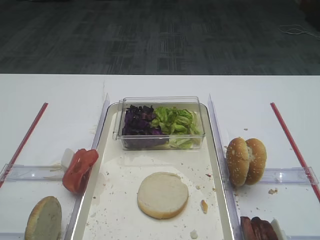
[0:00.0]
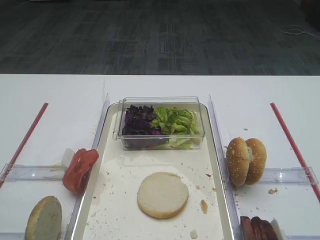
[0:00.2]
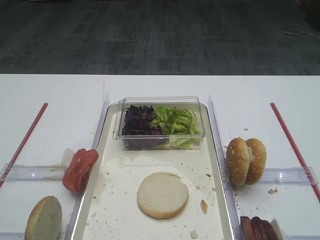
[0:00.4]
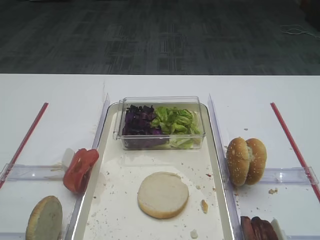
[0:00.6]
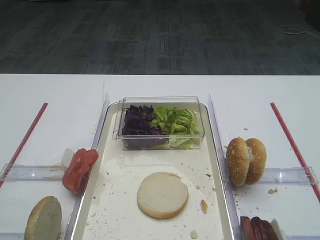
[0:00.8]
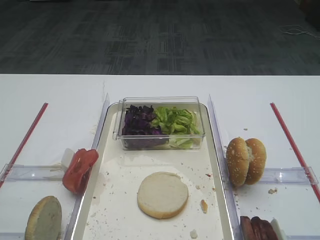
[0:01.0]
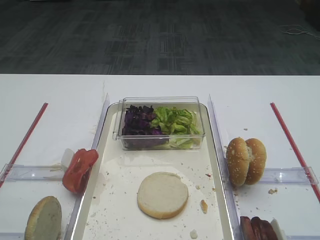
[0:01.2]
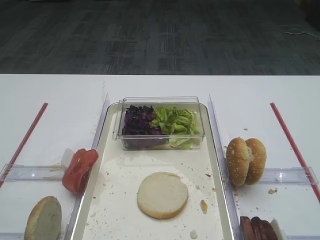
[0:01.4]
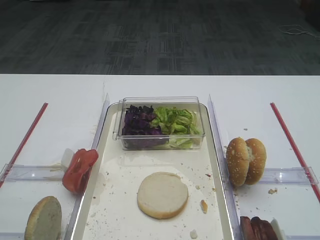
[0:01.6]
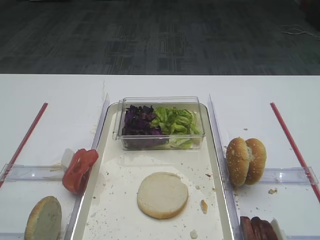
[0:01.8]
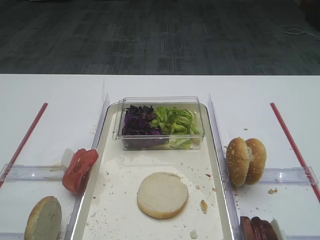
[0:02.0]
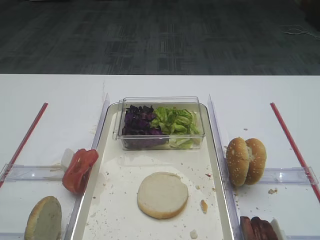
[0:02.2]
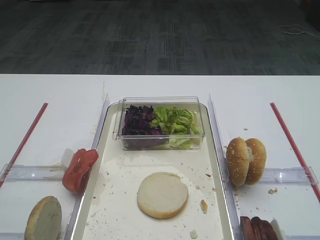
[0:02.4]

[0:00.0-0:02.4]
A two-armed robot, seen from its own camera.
0:01.2 to 0:02.4: Both grippers stay about where they are.

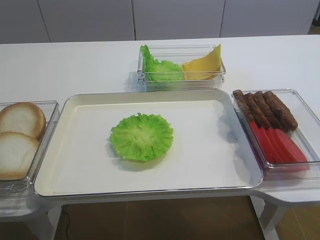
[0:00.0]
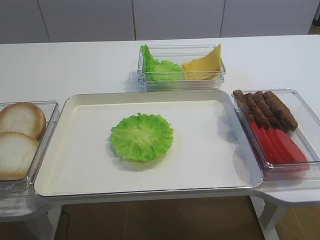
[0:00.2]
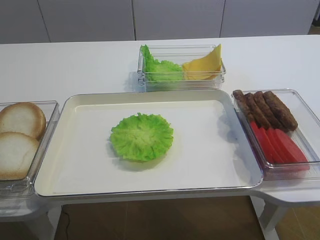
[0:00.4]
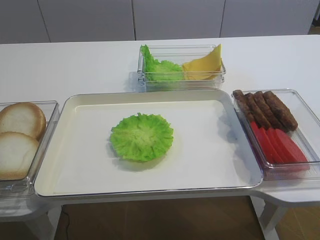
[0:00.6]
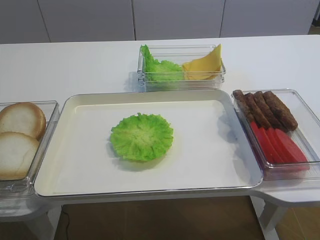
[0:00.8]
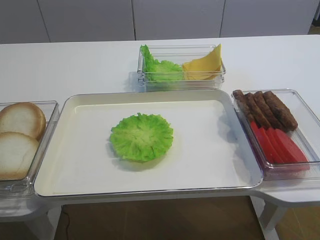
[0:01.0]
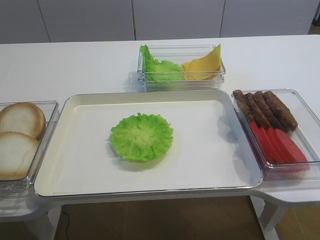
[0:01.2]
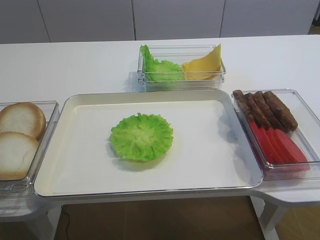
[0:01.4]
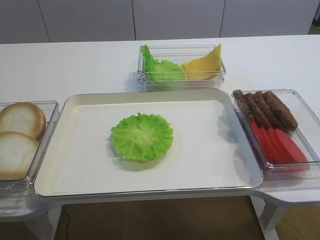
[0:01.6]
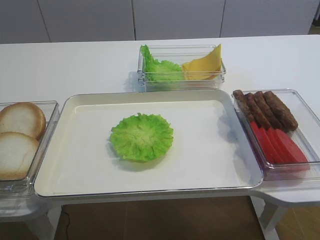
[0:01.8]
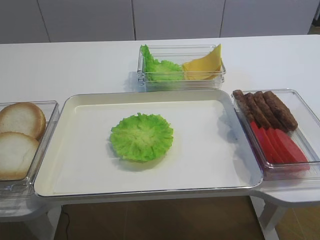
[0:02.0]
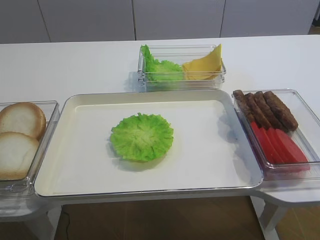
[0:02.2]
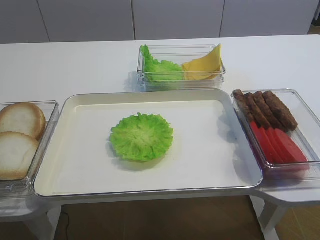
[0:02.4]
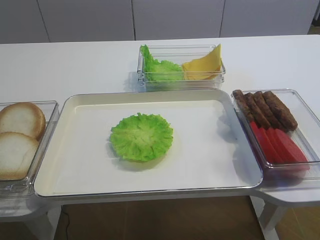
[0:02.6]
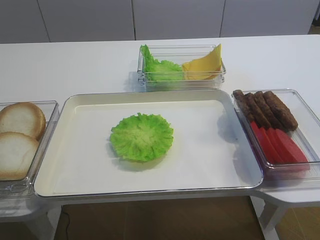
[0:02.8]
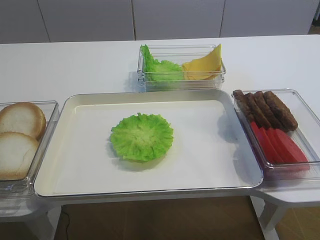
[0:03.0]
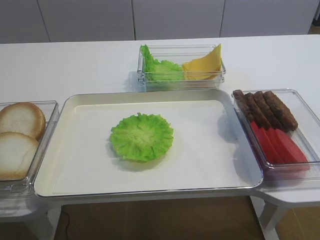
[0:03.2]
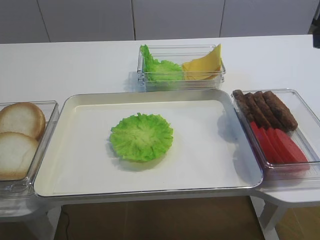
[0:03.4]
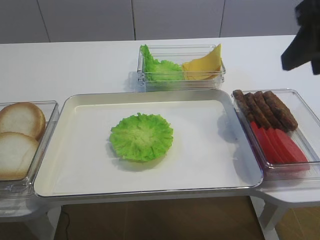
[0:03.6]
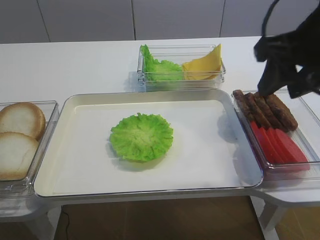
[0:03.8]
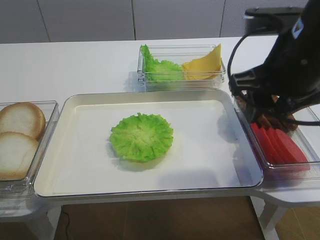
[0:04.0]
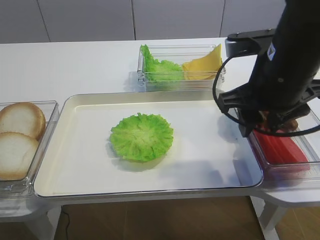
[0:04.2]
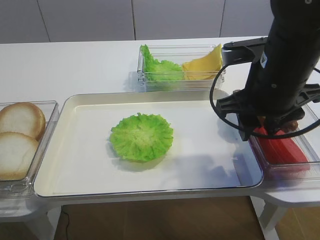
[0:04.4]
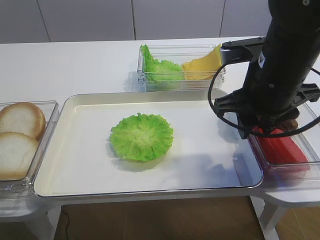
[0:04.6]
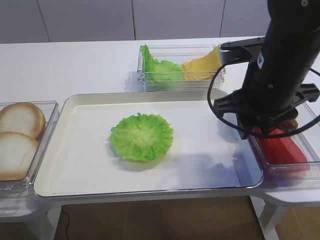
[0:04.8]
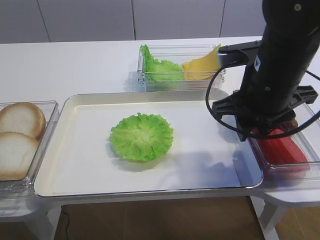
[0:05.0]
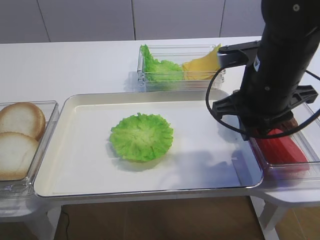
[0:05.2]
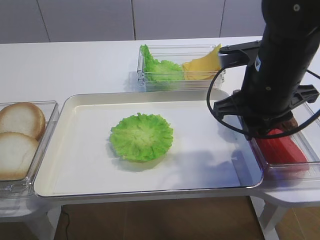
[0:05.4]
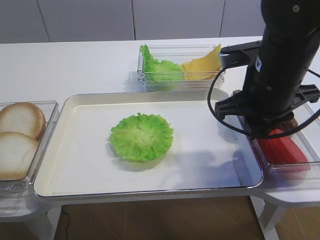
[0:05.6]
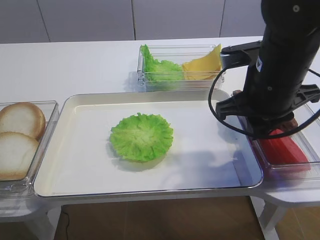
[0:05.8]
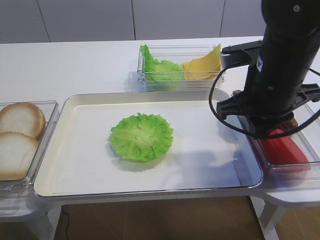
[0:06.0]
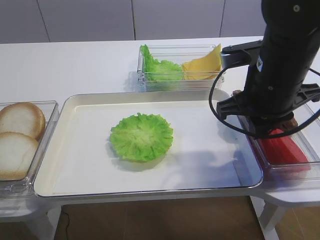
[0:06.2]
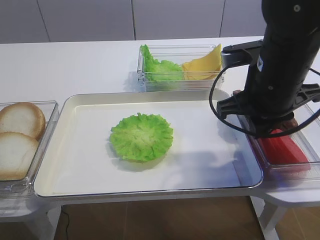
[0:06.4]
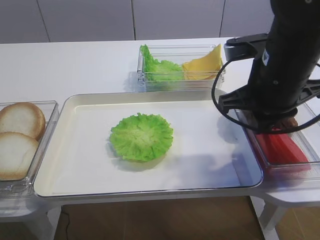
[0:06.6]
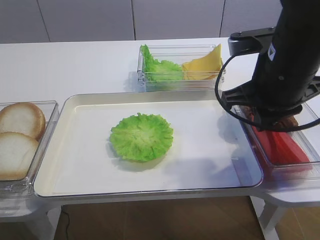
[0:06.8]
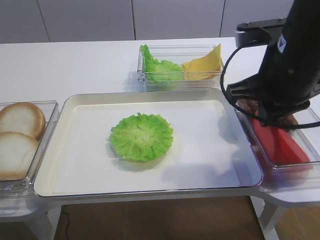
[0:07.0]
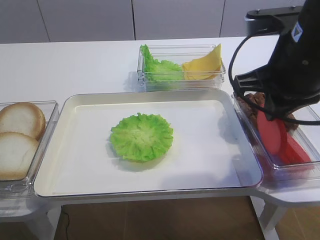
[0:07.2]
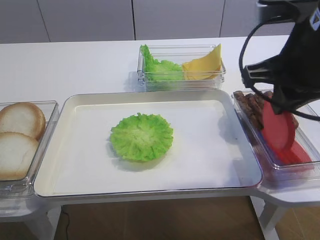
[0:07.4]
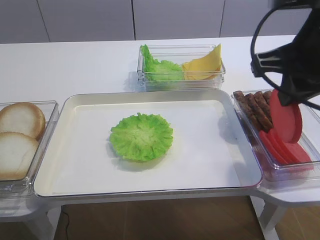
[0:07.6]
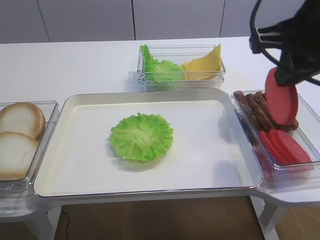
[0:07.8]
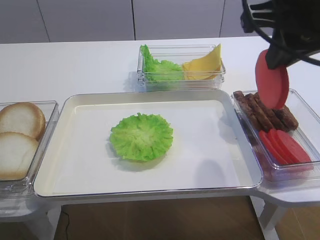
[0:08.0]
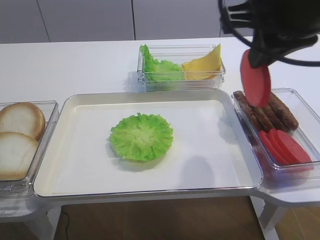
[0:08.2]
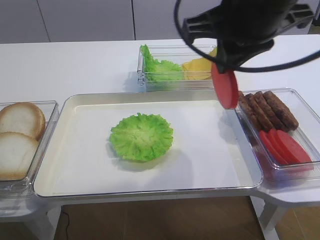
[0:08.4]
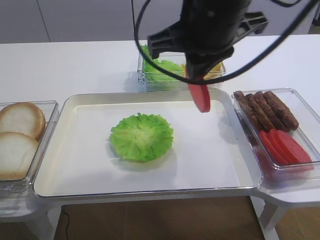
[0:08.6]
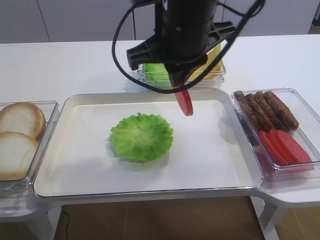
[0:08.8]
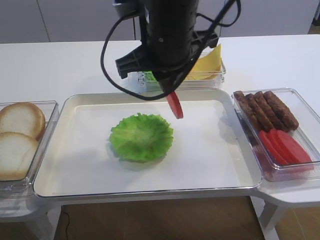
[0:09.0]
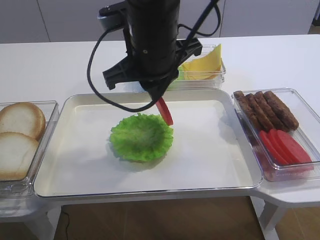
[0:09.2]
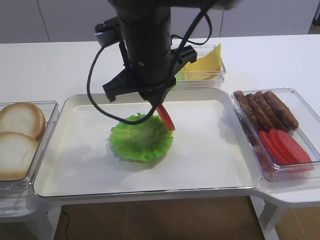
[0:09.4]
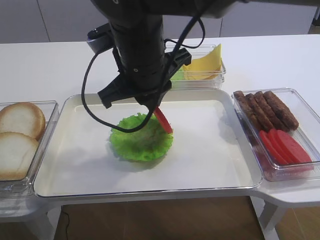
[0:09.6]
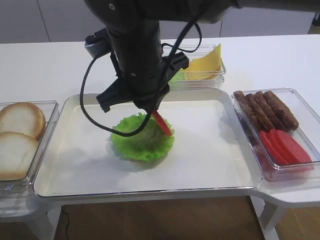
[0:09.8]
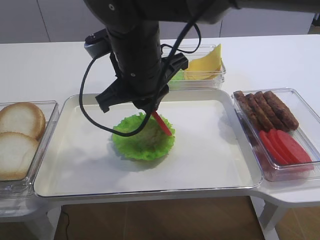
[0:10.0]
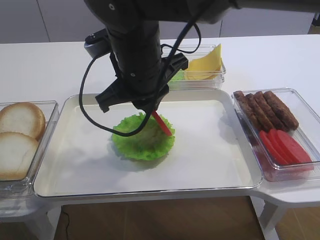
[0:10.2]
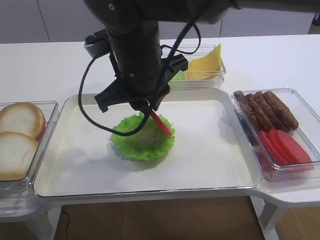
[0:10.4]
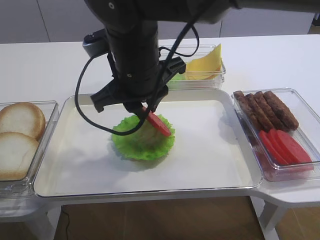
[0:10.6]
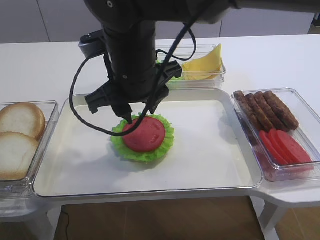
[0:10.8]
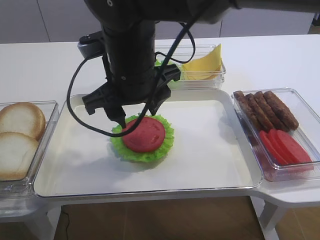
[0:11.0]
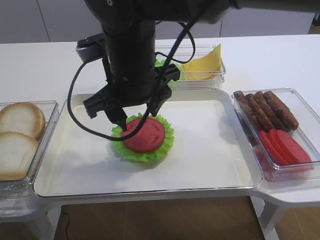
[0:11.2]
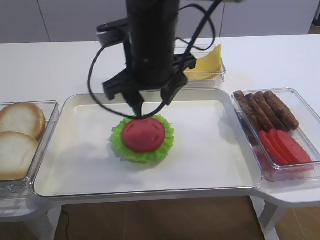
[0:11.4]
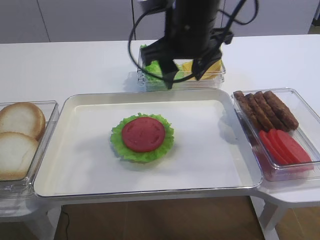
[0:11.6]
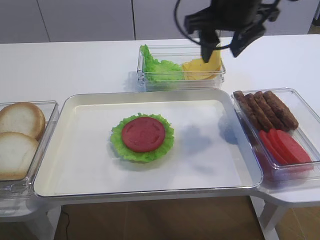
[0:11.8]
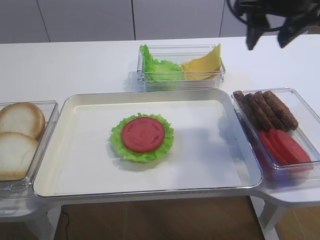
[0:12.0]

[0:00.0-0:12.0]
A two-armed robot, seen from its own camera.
Step, 0:00.0 to 0:07.2: Pick up the tomato slice with the right gripper.
Step, 0:07.4 to 0:10.6: Place the tomato slice on the lettuce leaf with the right gripper.
0:01.6 to 0:03.0: The right gripper travels forward and upward by approximately 20 cm.
0:03.0 to 0:04.4: The right gripper travels downward, forward and to the left by some 20 cm.
0:04.4 to 0:06.0: The right gripper closes up.
0:06.0 to 0:07.6: The right gripper heads upward, covering some 10 cm.
0:07.6 to 0:09.0: The right gripper goes roughly 20 cm to the left and forward.
0:09.0 to 0:10.4: The right gripper ends up approximately 5 cm from where it was.
0:10.4 to 0:12.0: The right gripper shifts some 20 cm to the right, and opens its fingers.

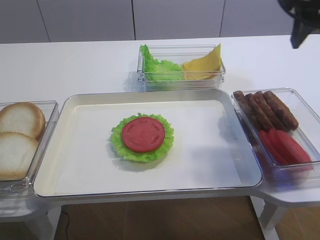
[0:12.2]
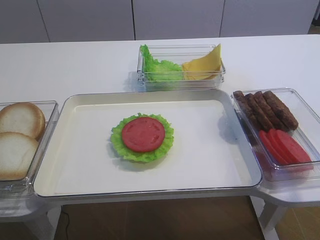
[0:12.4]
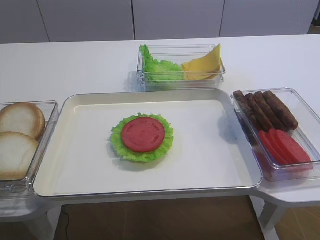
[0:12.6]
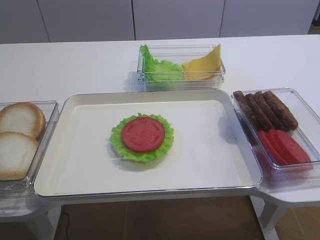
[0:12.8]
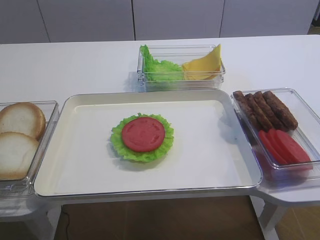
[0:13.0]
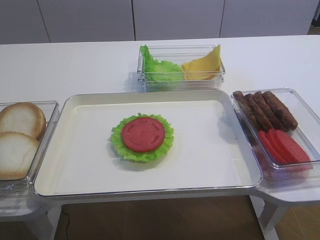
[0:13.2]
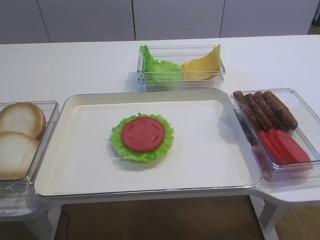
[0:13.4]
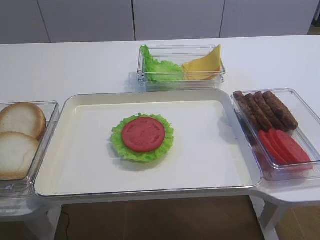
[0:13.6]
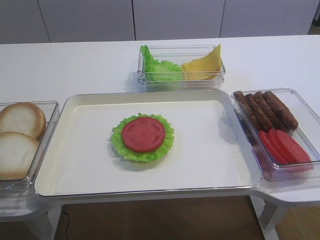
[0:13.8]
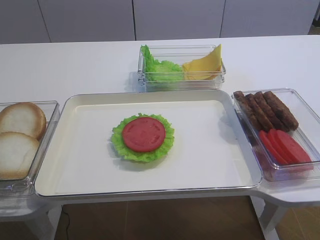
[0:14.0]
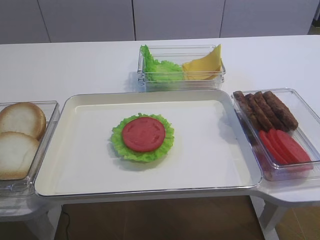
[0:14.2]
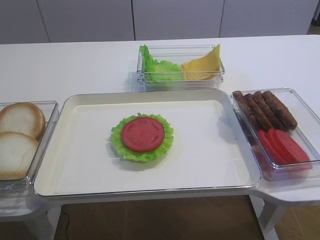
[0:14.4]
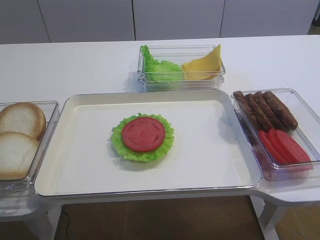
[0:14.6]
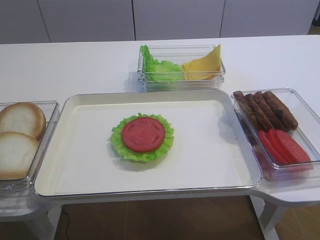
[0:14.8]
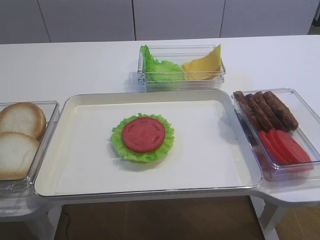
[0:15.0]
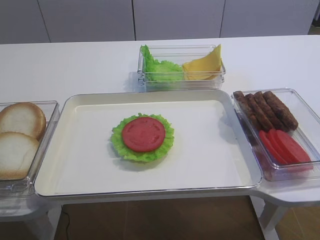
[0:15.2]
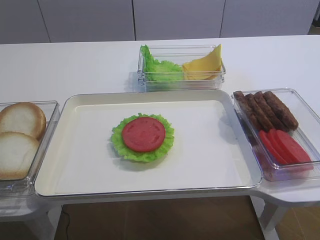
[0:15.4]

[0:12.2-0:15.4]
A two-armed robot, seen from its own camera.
0:12.2 to 0:13.8: The right gripper is displaced backward by approximately 30 cm.
